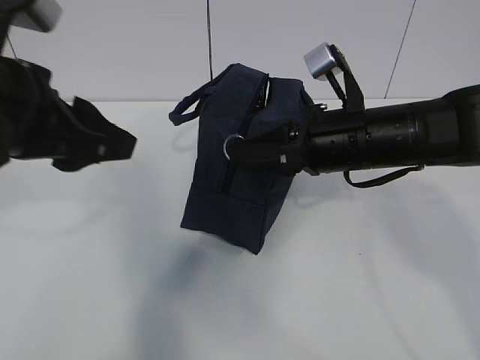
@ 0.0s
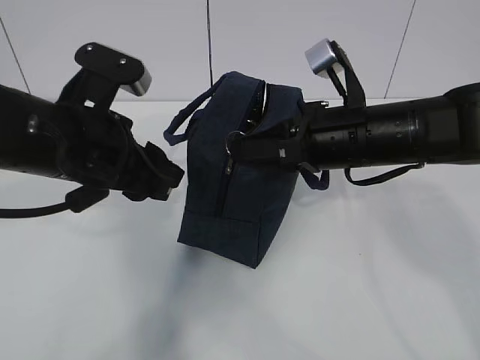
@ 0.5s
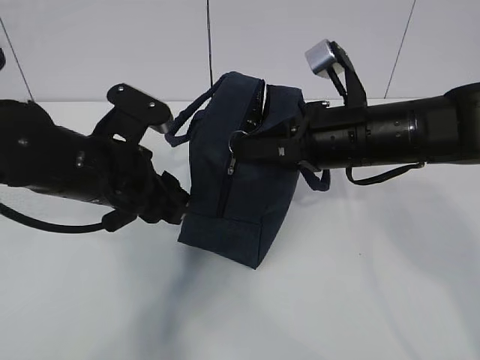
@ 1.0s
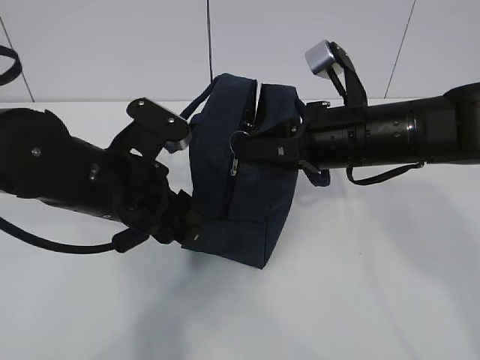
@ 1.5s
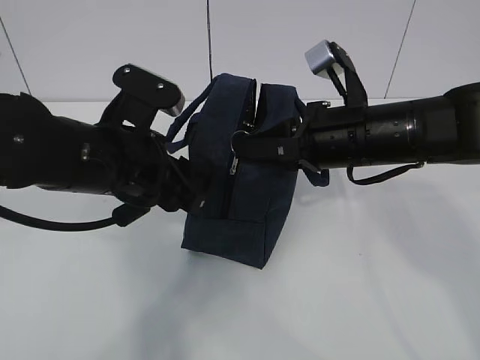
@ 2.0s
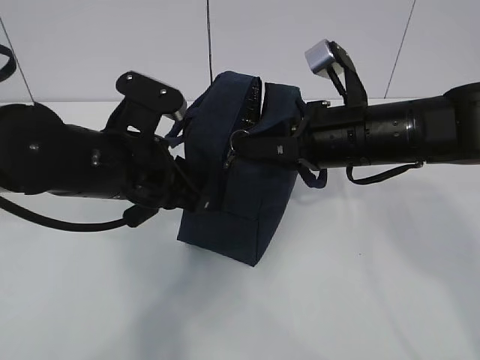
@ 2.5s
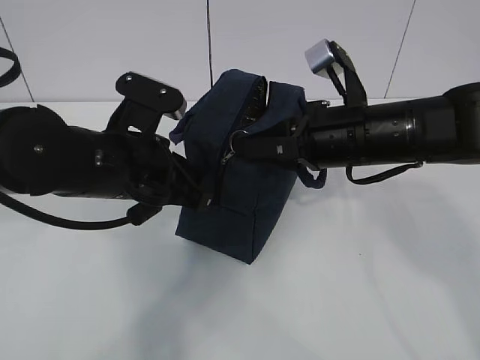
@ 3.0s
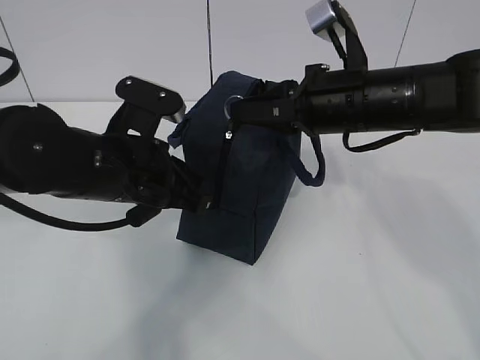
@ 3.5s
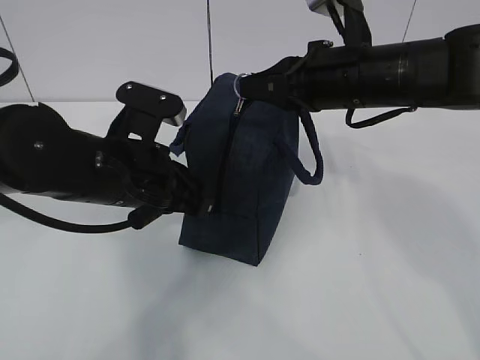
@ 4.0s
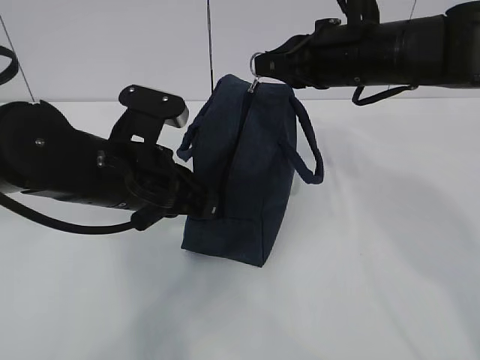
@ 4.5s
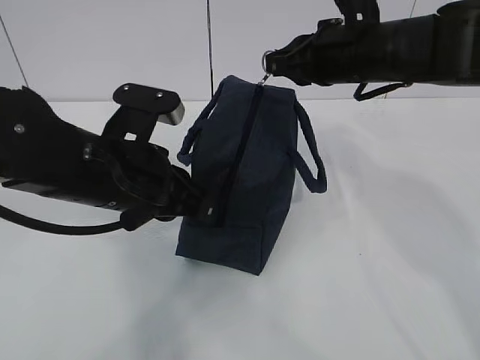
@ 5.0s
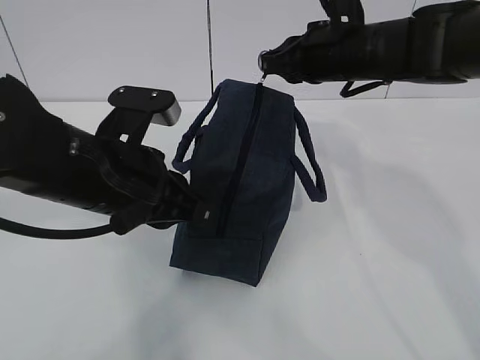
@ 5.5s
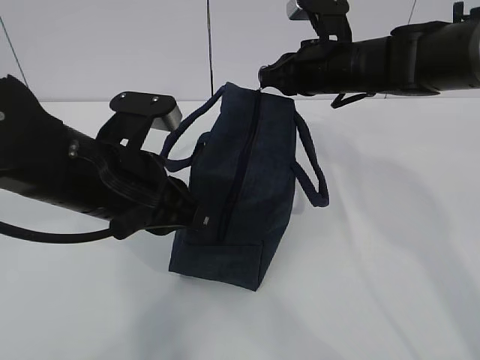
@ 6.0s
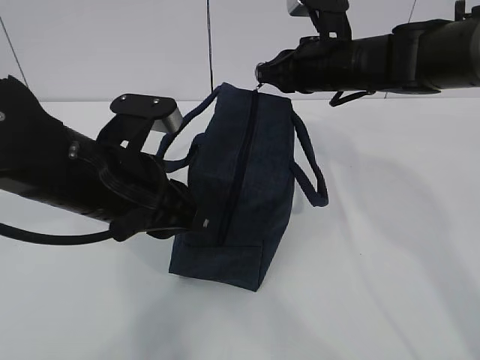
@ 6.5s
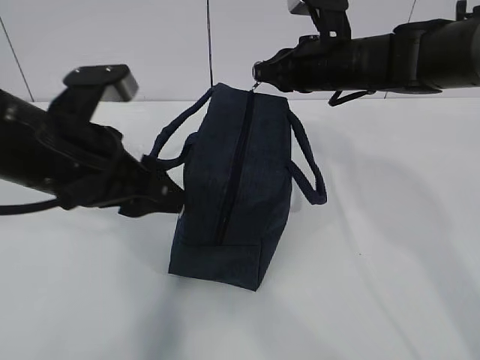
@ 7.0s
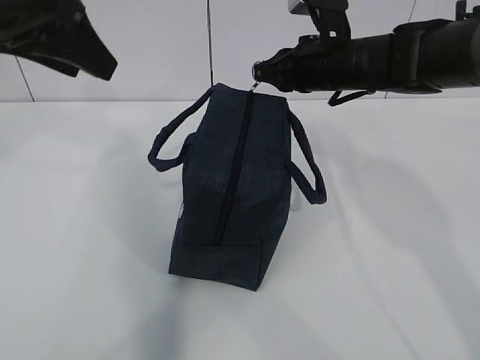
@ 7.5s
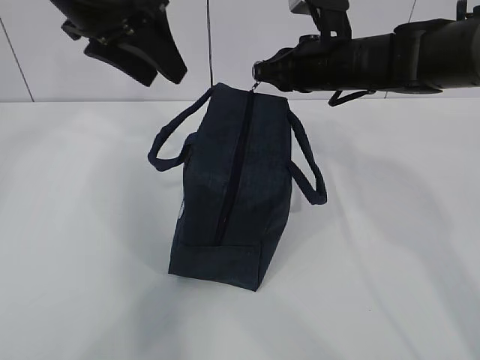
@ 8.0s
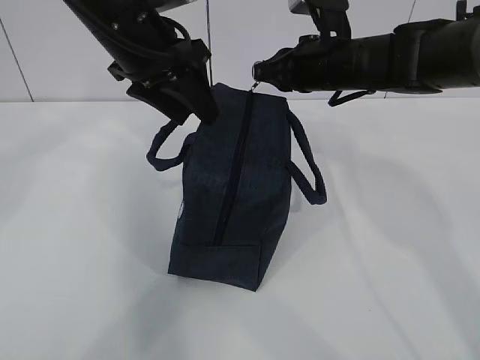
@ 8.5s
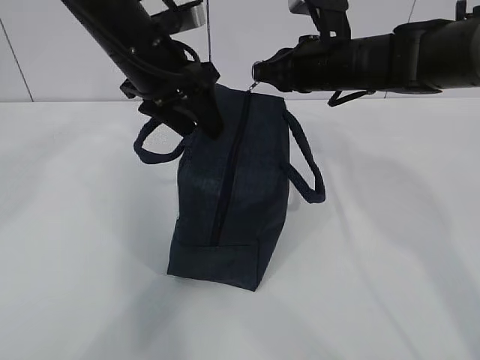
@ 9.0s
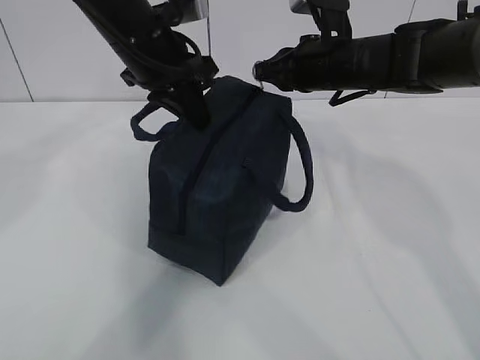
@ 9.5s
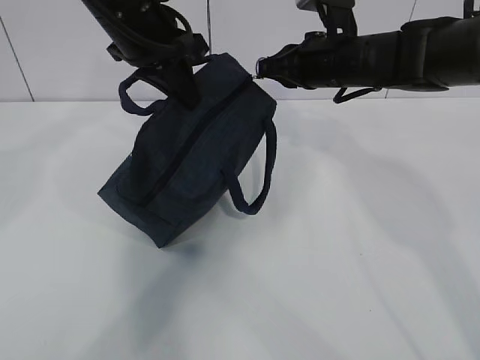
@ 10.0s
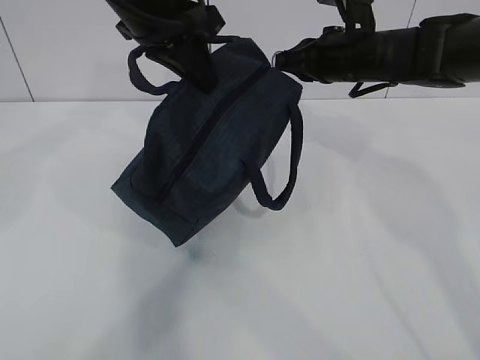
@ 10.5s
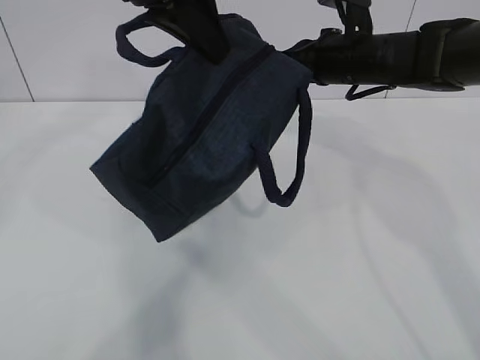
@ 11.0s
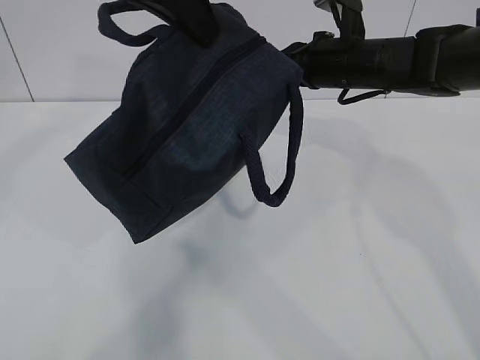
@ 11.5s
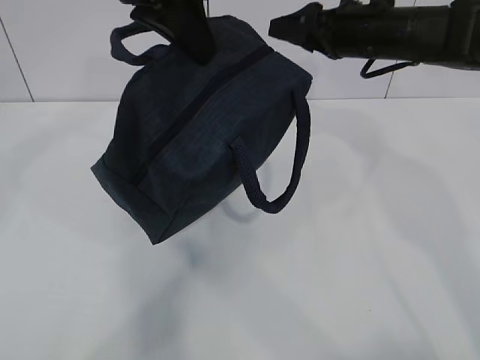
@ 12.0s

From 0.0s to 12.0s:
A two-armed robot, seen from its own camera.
From 0.0s to 2.0s: The left gripper heads downward and to the right, covering roughly 10 cm.
From 2.0s to 4.0s: The right gripper shifts by some 5 cm, while the left gripper closes.
From 4.0s to 6.0s: The right gripper heads forward, covering roughly 10 cm.
From 6.0s to 8.0s: The left gripper is displaced upward and forward by roughly 20 cm, and opens.
From 8.0s to 10.0s: The left gripper closes up.
From 10.0s to 12.0s: The left gripper shifts about 10 cm upward and backward, while the right gripper changes place by some 5 cm, and opens up.

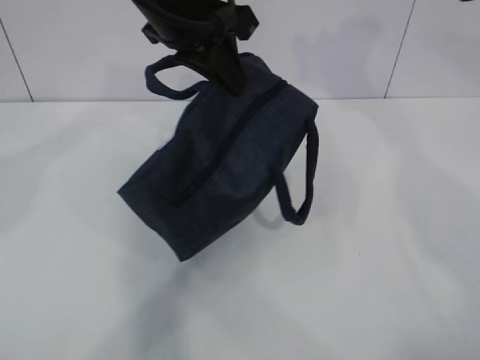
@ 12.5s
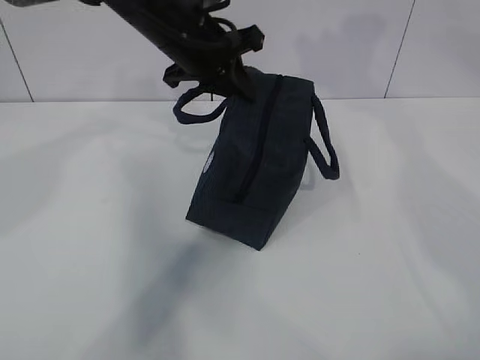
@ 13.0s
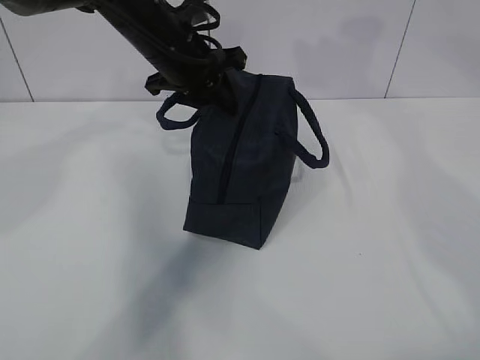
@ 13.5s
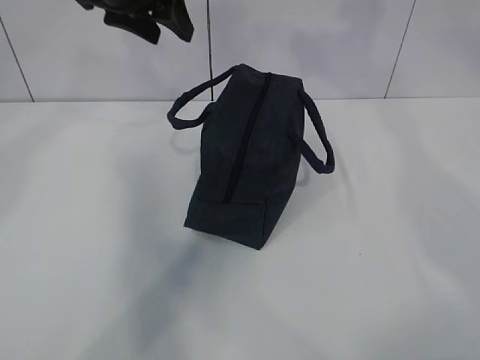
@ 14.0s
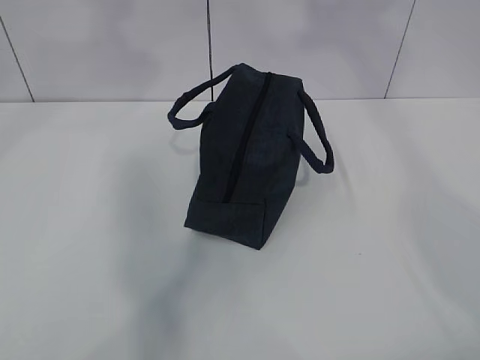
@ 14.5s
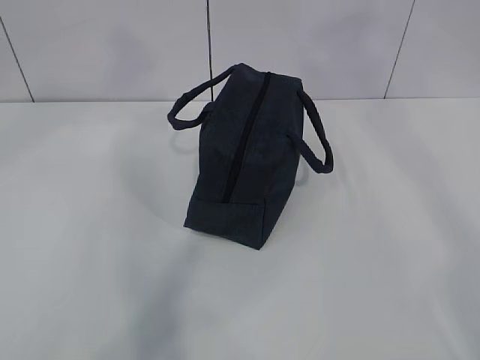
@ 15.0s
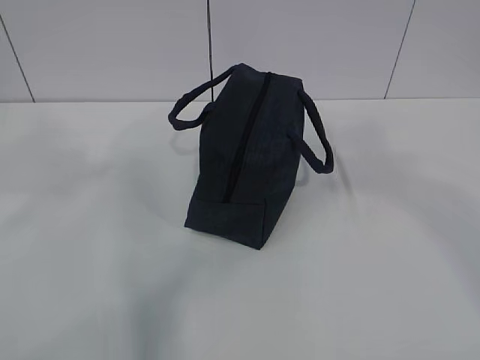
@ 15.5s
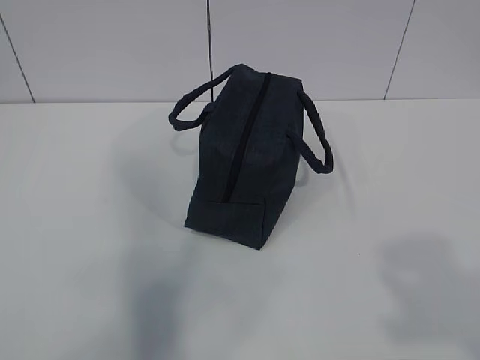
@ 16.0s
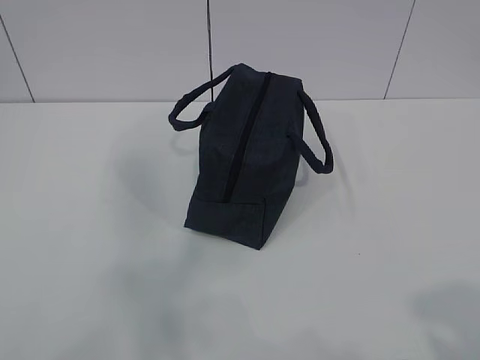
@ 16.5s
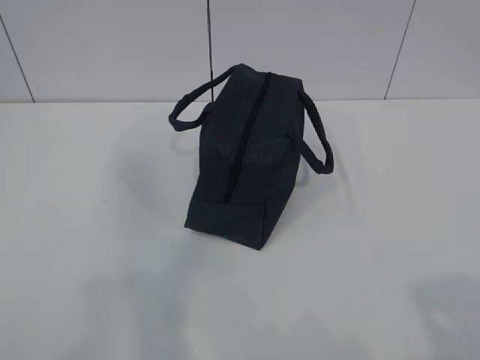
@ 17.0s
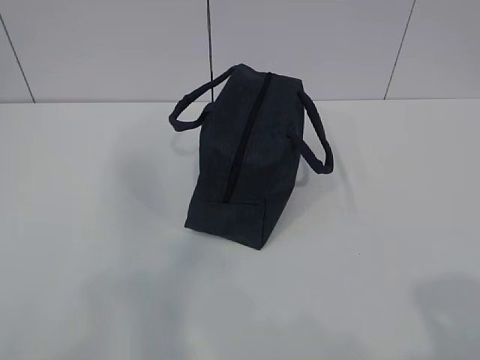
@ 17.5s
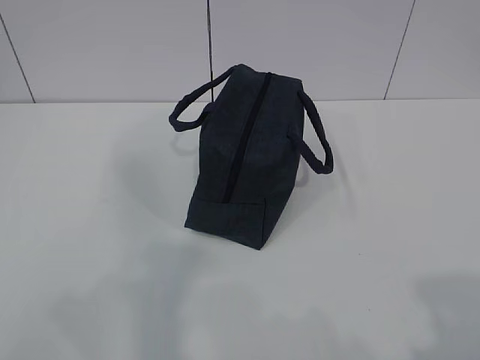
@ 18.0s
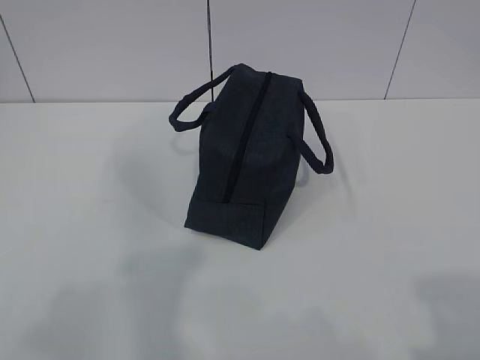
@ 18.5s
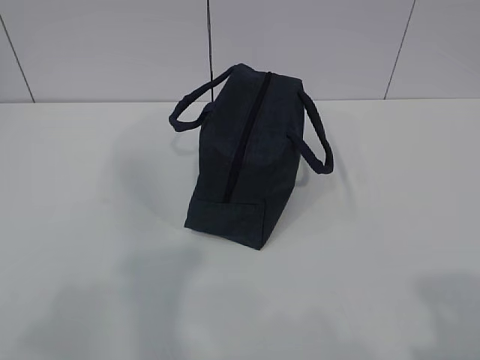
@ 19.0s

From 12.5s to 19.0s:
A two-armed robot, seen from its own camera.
From 12.5s to 14.5s: The left gripper moves upward and to the left, about 15 cm, and opens. The right gripper shifts approximately 20 cm upward and backward.

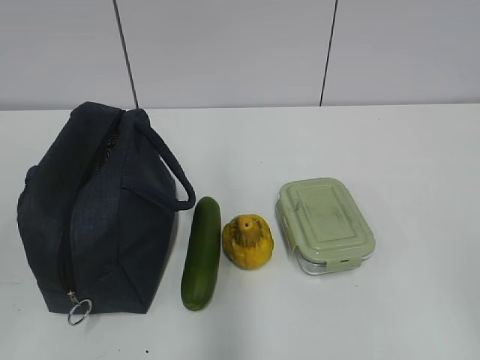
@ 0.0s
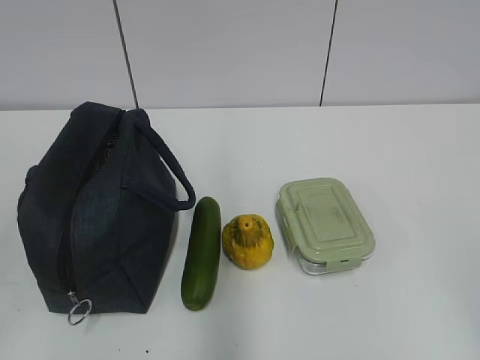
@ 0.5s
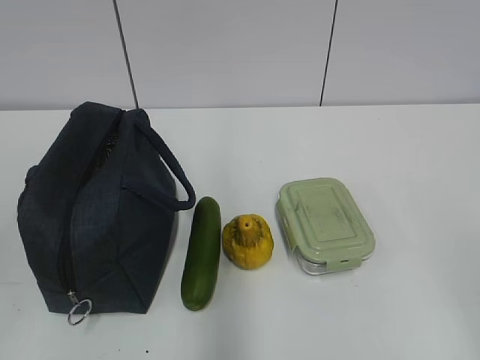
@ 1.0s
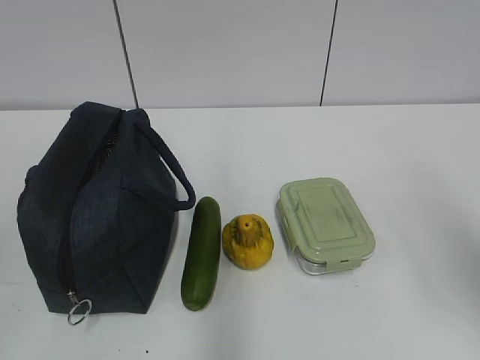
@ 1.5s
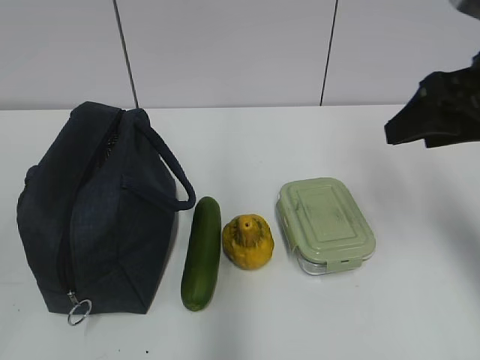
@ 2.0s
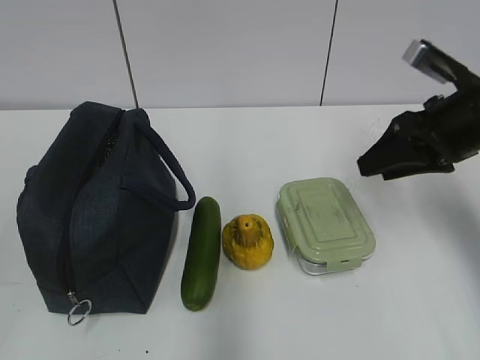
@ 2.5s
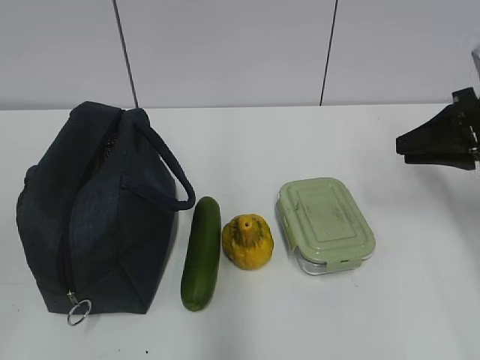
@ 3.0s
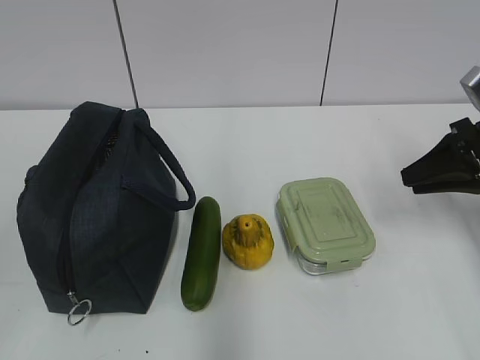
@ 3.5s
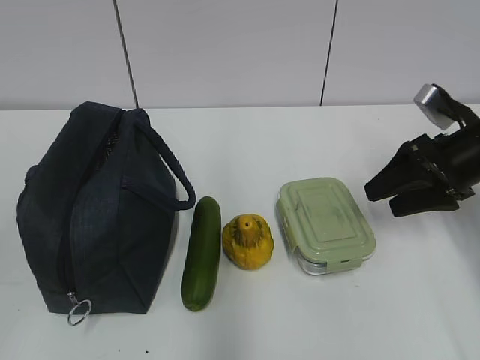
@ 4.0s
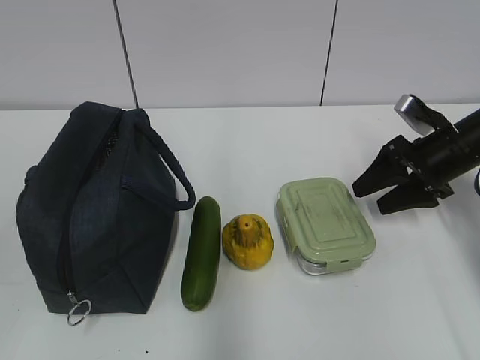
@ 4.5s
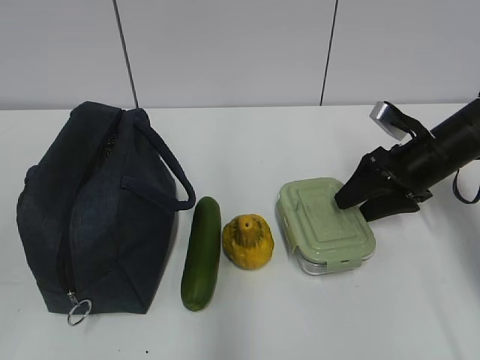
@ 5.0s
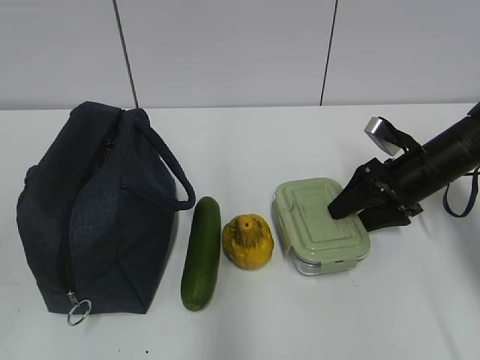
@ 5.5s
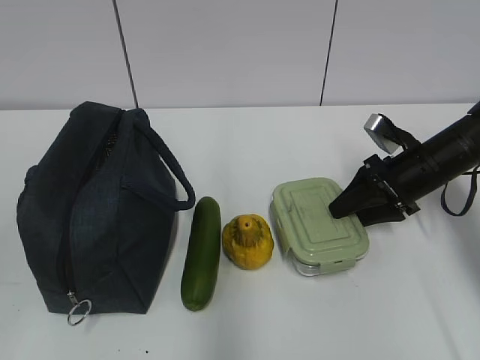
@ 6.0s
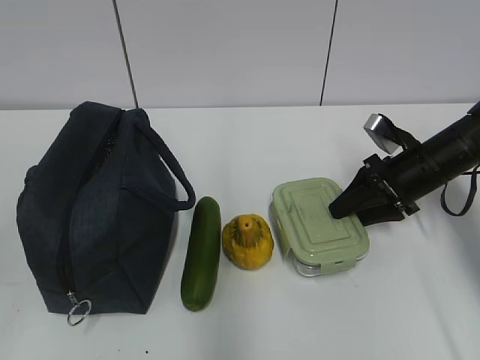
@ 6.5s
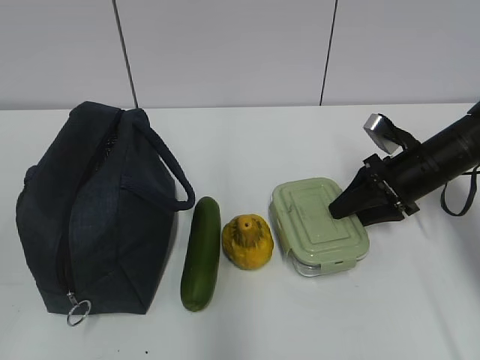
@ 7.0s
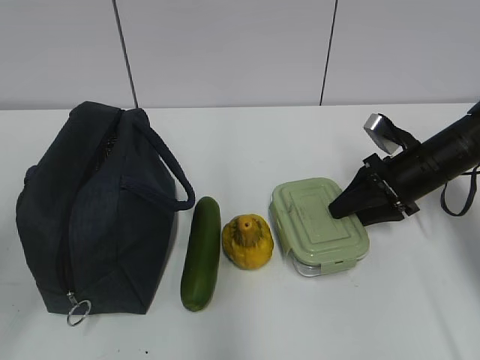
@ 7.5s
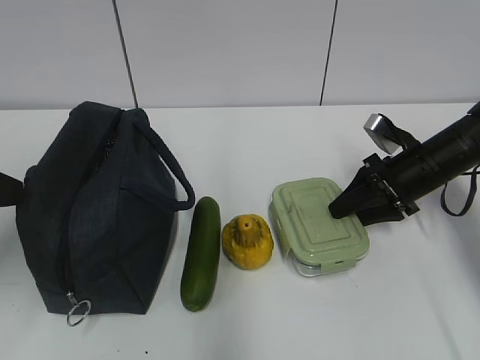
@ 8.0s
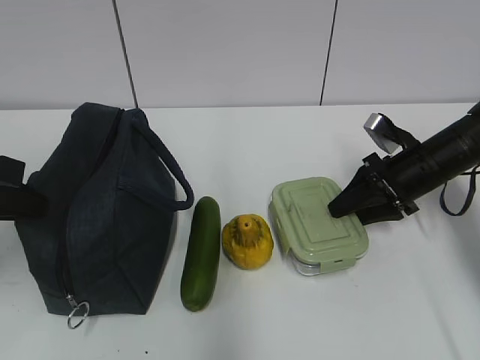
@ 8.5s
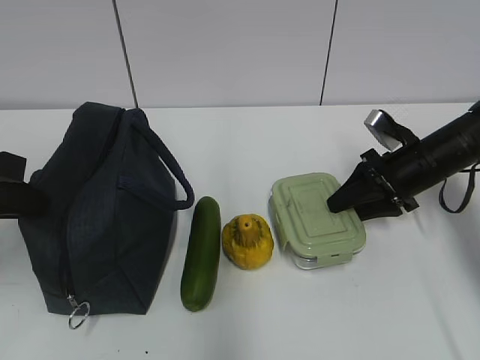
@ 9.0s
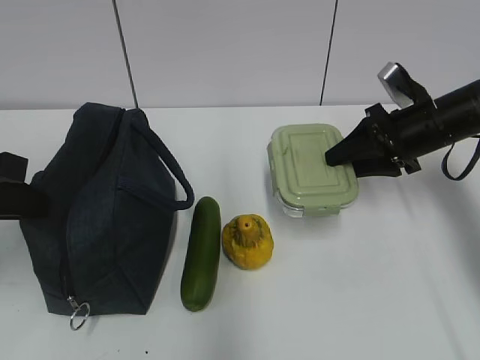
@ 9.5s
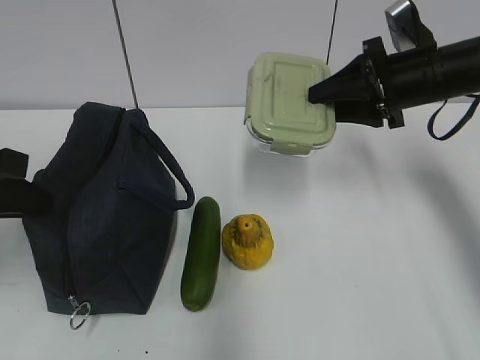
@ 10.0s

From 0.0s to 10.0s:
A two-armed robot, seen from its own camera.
From 2.0s to 4.0s: The right gripper shifts roughly 15 cm downward and forward, and closes, then opens again.
From 4.0s to 6.0s: The right gripper shifts approximately 5 cm downward.
From 6.0s to 8.0s: The left gripper goes about 20 cm forward.
From 8.0s to 10.0s: The left gripper closes its fingers. Meanwhile the right gripper travels upward by approximately 10 cm.
